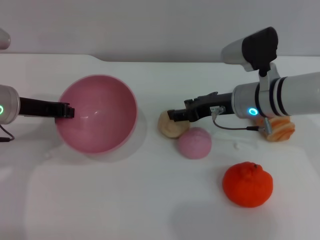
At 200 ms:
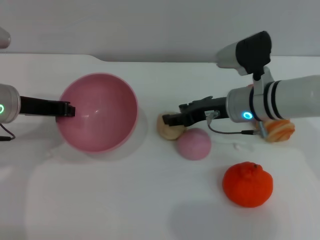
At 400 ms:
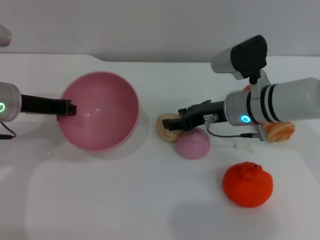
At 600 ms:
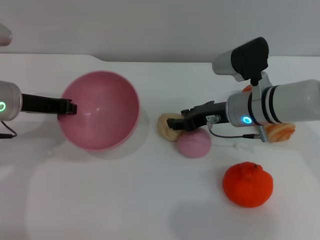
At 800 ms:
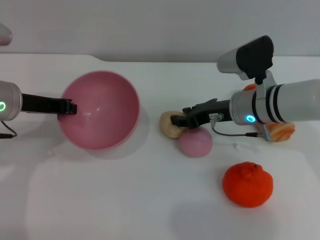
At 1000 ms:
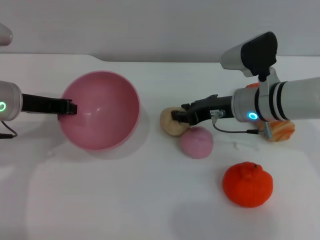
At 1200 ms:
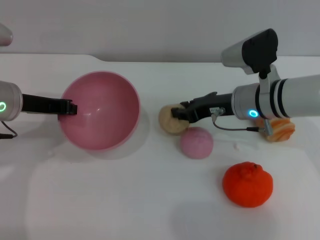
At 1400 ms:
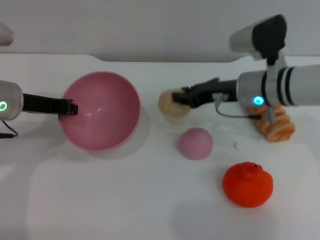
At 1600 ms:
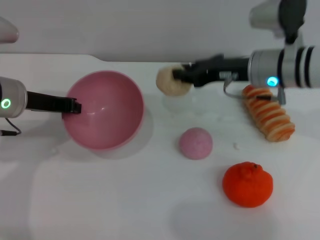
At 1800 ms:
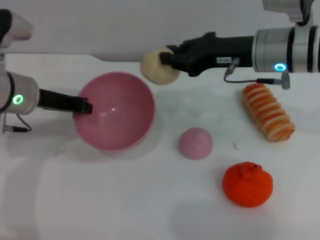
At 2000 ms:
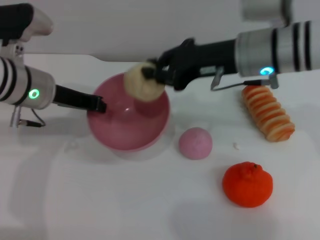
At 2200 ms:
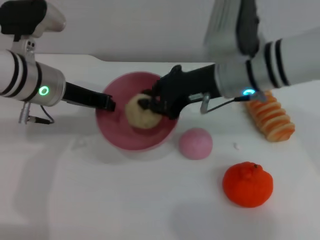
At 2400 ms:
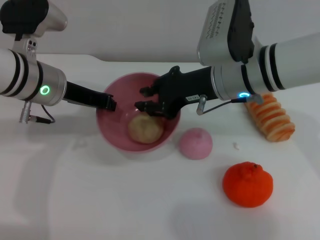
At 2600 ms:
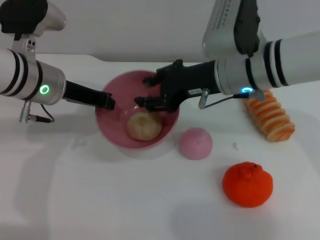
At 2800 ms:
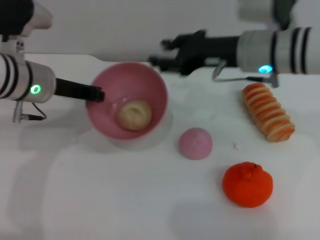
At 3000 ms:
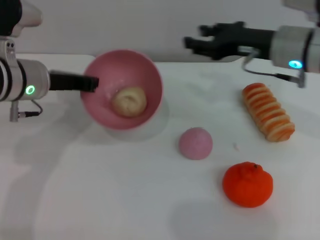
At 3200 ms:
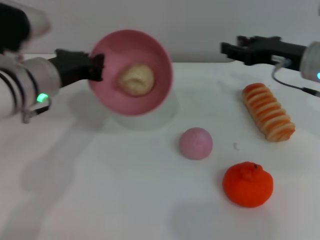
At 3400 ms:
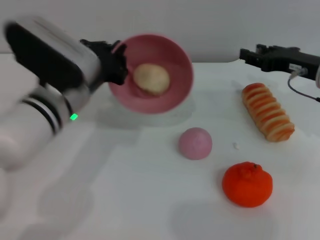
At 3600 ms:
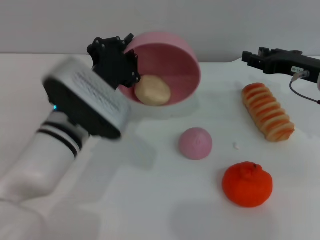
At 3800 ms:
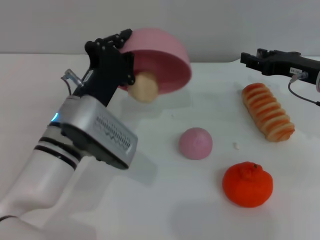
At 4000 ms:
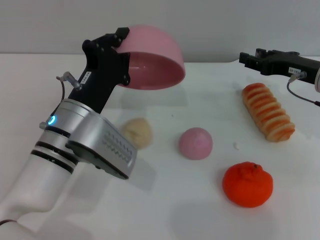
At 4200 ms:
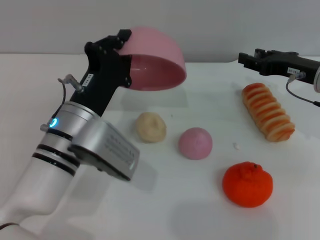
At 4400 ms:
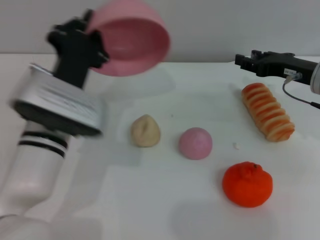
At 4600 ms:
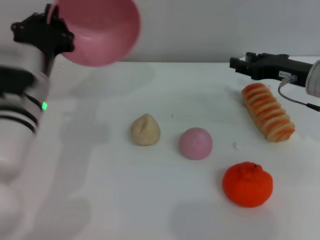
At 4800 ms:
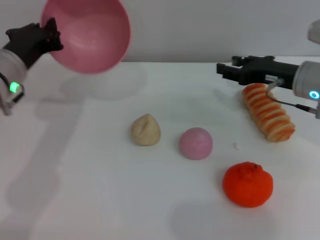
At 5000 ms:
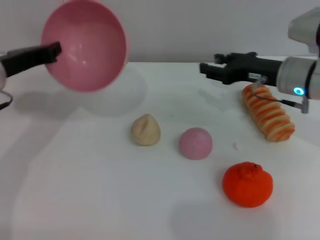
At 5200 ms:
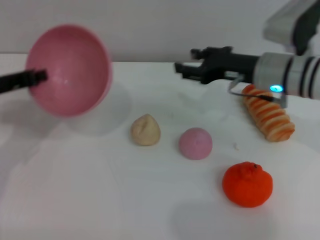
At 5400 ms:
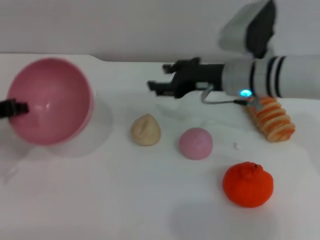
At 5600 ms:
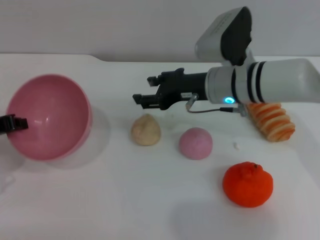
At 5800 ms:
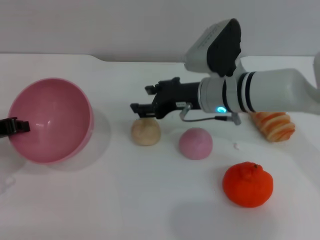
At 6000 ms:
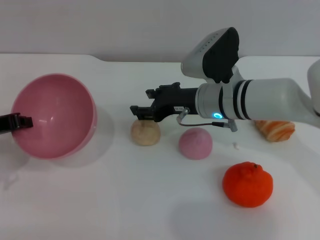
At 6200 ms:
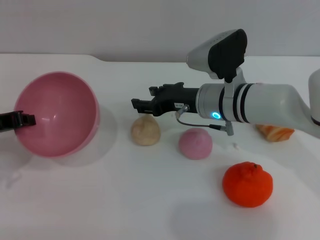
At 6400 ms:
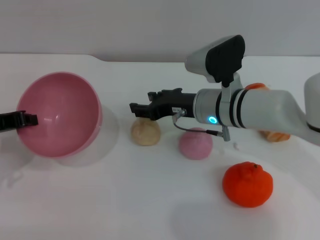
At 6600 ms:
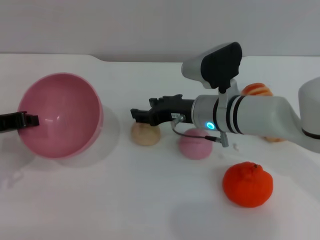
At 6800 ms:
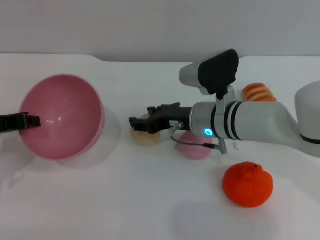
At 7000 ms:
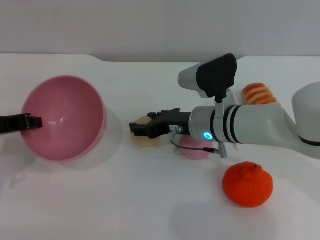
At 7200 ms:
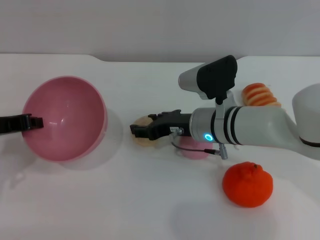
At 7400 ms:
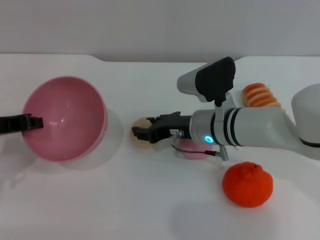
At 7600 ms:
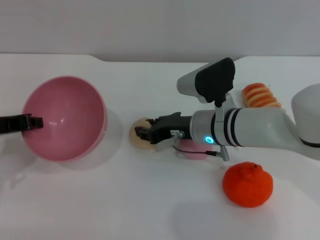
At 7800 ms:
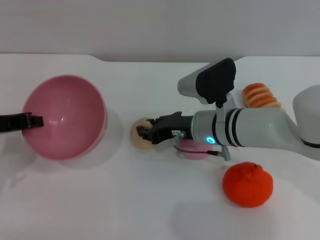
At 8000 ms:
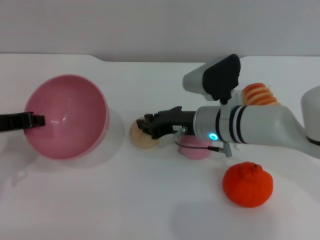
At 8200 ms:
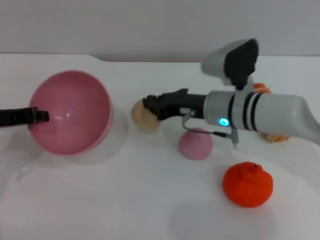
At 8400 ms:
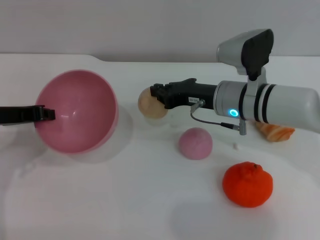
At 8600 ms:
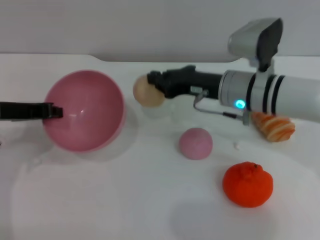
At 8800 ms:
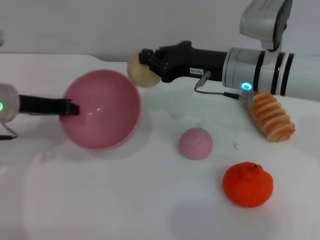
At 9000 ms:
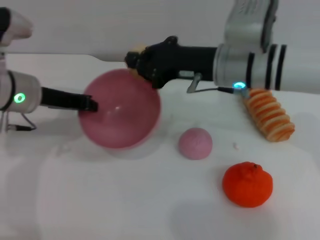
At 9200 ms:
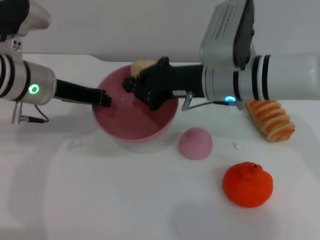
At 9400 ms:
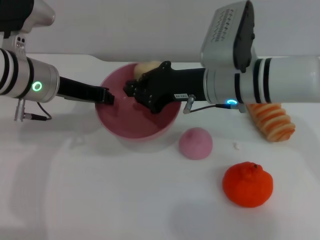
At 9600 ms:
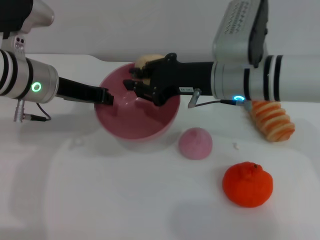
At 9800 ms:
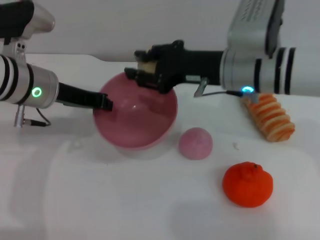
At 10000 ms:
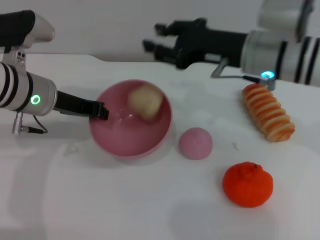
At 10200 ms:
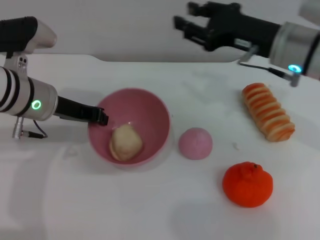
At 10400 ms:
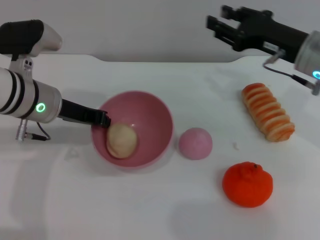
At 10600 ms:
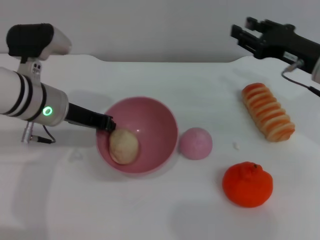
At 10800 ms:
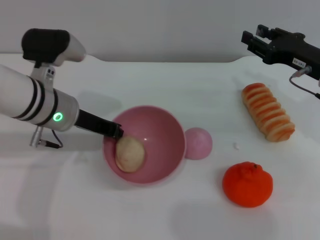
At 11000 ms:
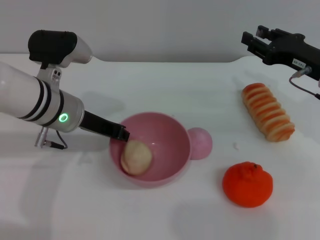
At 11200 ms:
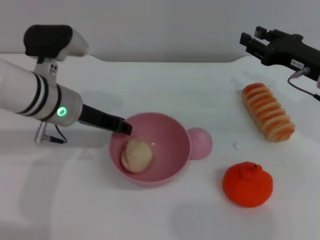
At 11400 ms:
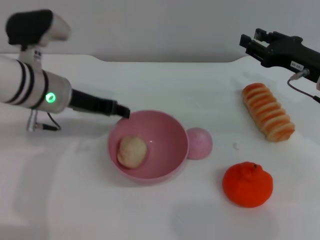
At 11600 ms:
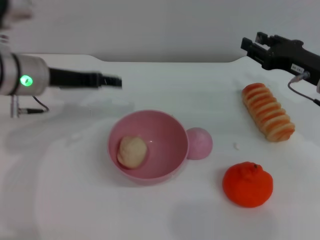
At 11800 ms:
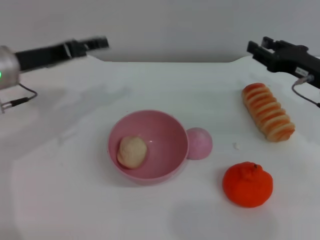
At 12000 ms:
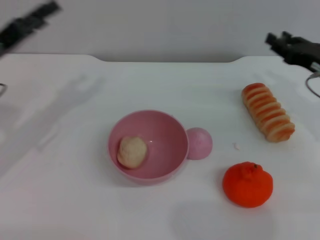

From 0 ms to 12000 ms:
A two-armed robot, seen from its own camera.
Task of the whole recording: put the egg yolk pastry into the pink bowl and pour it out repeatedly.
Step, from 1600 ms to 3000 ms: Place the egg yolk pastry into the bowl.
Step, from 3200 ms to 4200 ms: Pour the egg yolk pastry out of bowl.
Step, from 4400 ms to 8400 ms: Pick up the egg yolk pastry with the right gripper.
Step, from 8800 ms to 10000 ms: Place the egg yolk pastry into the bowl.
Step, from 10400 ms to 12000 ms: Place the bowl on the table.
From 0 ms to 1600 ms: The right gripper changes place by roughly 5 cm.
From 1600 ms to 3000 ms: The right gripper goes to the left and returns, approximately 5 cm each way, and opens up.
From 3000 ms to 4400 ms: The left gripper is displaced backward, to the right and downward by approximately 10 cm; the right gripper goes about 10 cm to the right and downward.
From 4400 ms to 6000 ms: Both grippers move to the left, roughly 15 cm.
From 6000 ms to 7600 ms: The grippers make only small movements.
From 7600 ms to 9000 ms: The right gripper moves upward, some 10 cm, and closes up, while the left gripper shifts roughly 10 cm to the right and forward.
From 9000 ms to 10400 ms: The right gripper shifts approximately 10 cm to the right, and opens.
From 10400 ms to 12000 ms: The right gripper moves to the right and downward, roughly 10 cm, while the left gripper heads to the left, covering approximately 10 cm, and opens up.

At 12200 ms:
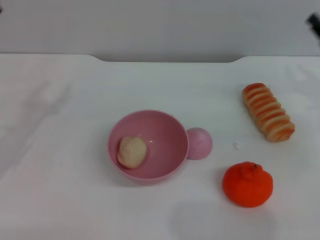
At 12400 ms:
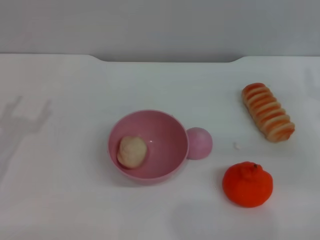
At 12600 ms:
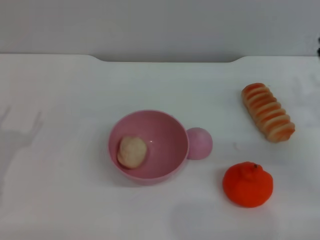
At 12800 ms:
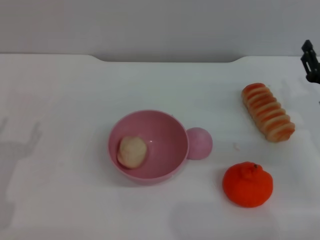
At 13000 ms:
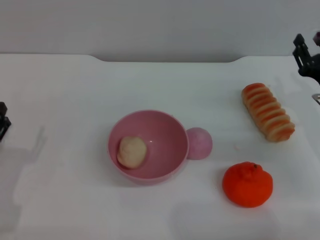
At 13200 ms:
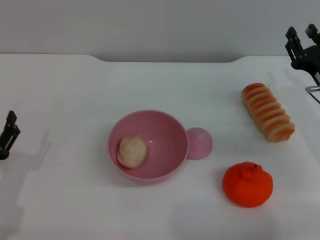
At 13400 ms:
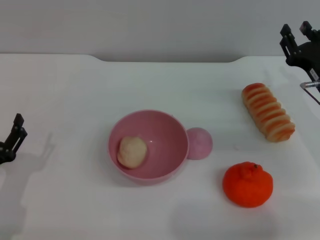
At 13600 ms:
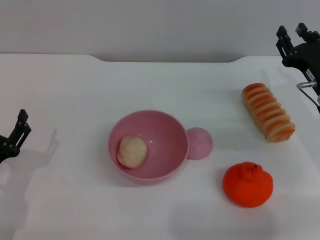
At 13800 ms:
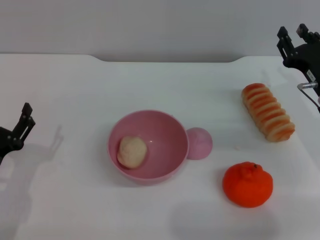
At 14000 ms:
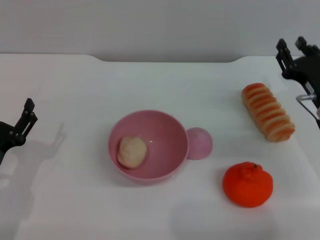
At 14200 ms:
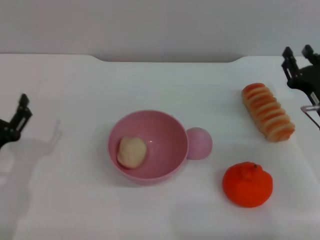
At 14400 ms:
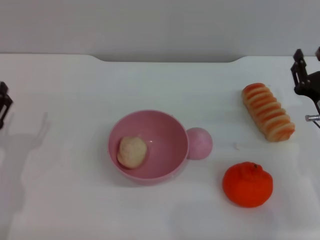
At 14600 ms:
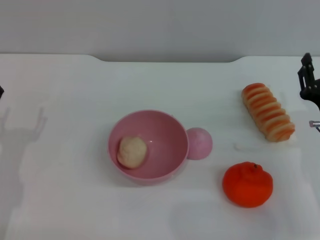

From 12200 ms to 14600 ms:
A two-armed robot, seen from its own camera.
Task of the whole recording: put the egg yolk pastry into the pink bowl and pour it out repeatedly.
From 12200 ms to 13400 ms: The left gripper travels downward and backward by some 15 cm; the right gripper shifts roughly 5 cm to the left.
From 13400 ms to 14600 ms: The left gripper changes place by about 5 cm. The right gripper goes some 5 cm backward.
